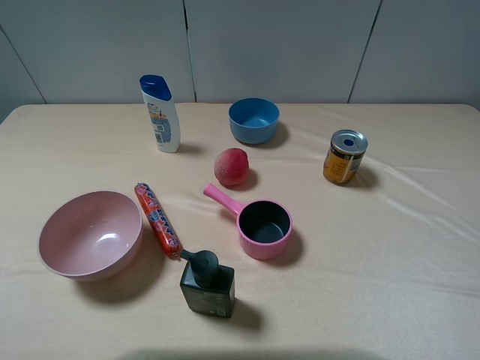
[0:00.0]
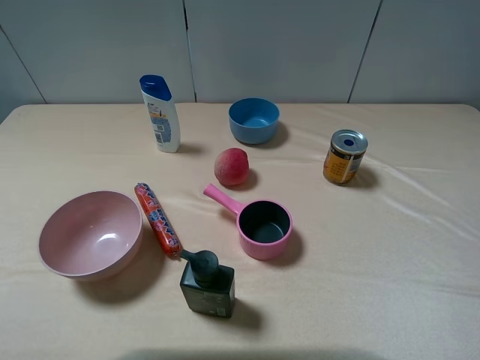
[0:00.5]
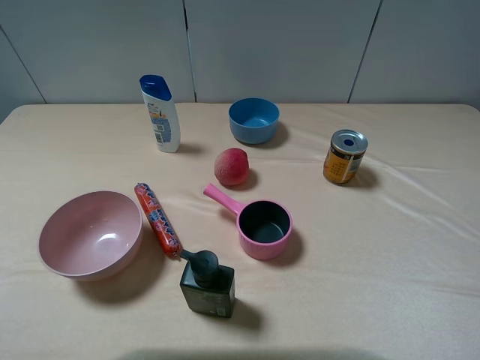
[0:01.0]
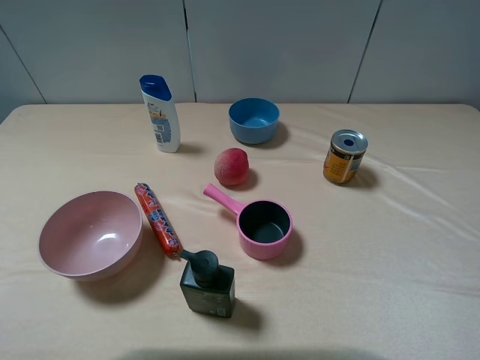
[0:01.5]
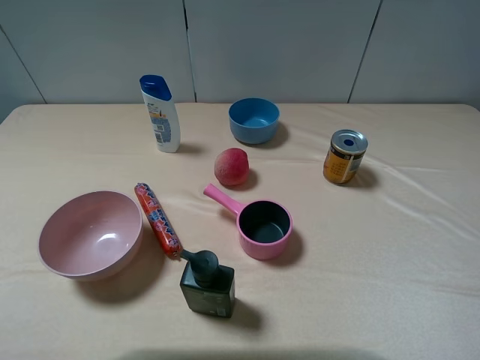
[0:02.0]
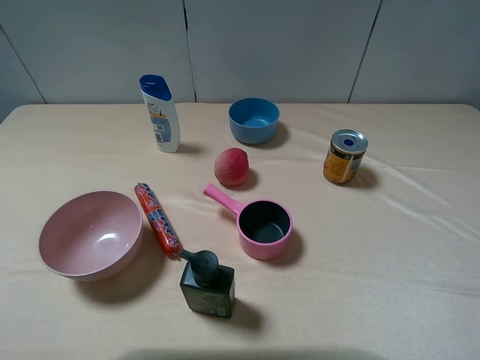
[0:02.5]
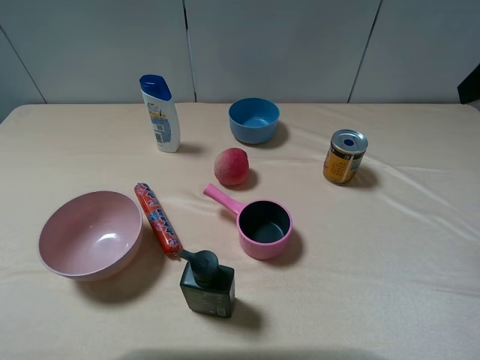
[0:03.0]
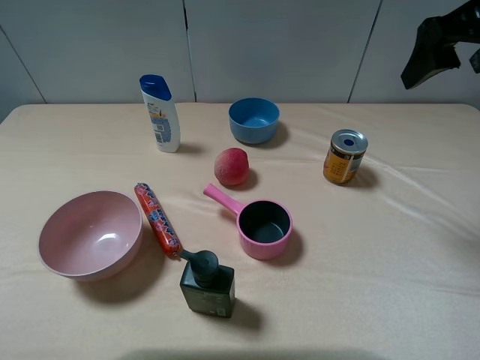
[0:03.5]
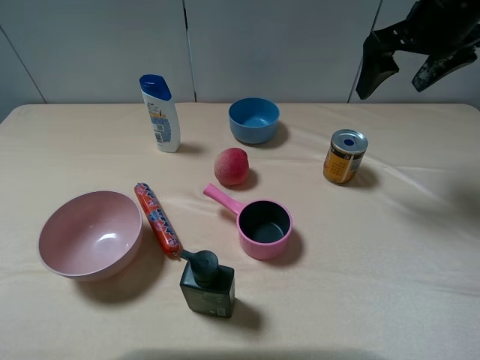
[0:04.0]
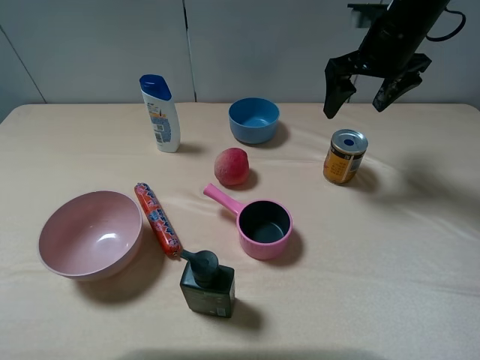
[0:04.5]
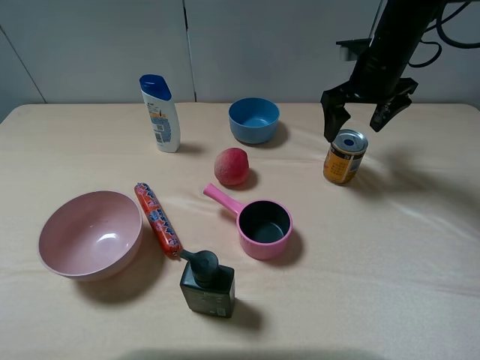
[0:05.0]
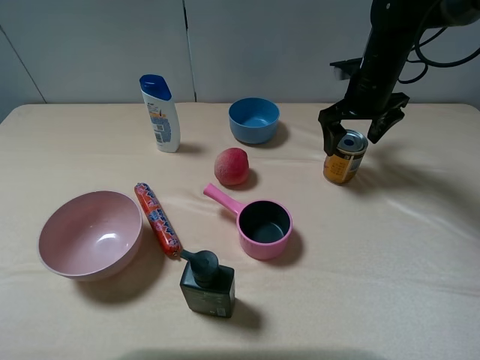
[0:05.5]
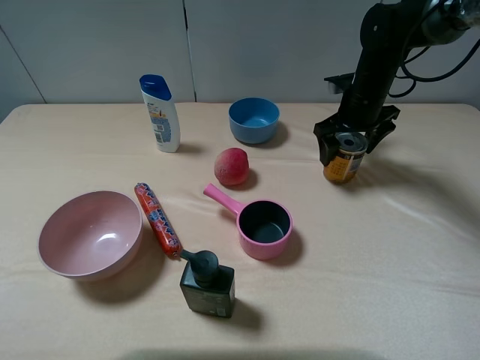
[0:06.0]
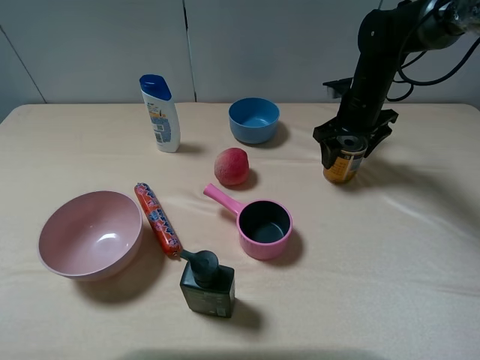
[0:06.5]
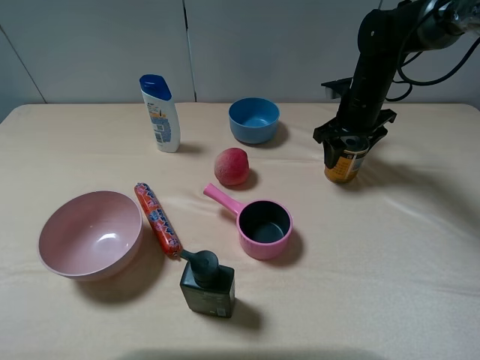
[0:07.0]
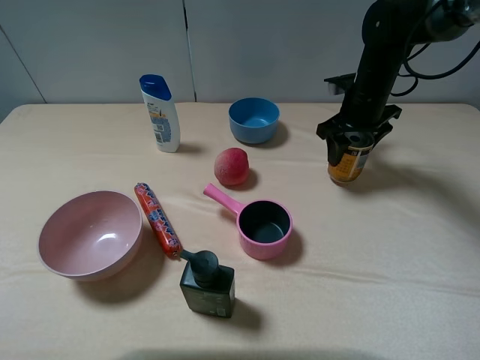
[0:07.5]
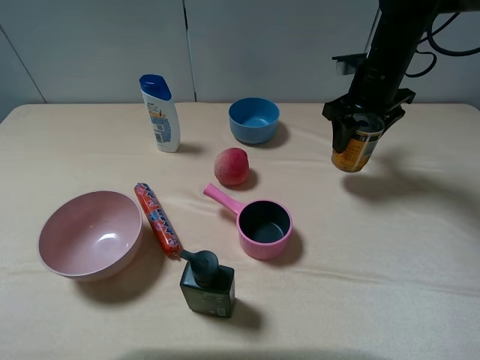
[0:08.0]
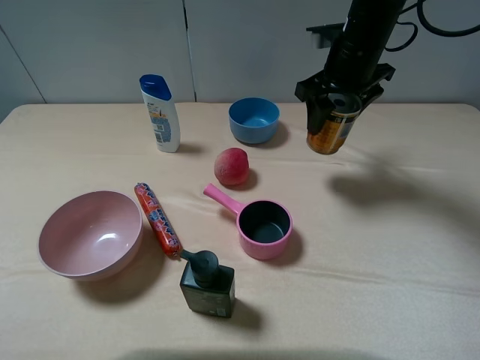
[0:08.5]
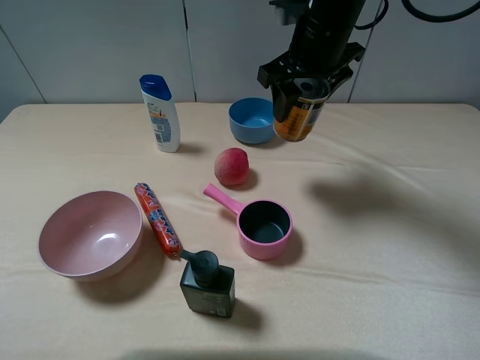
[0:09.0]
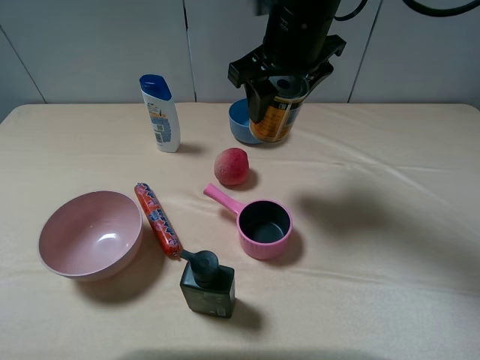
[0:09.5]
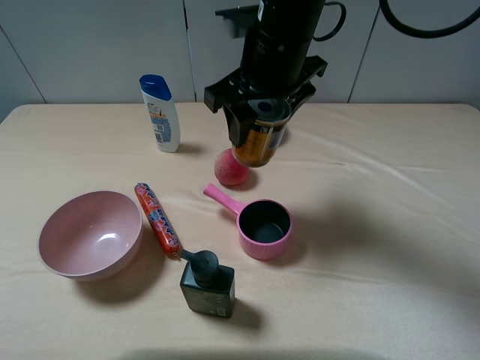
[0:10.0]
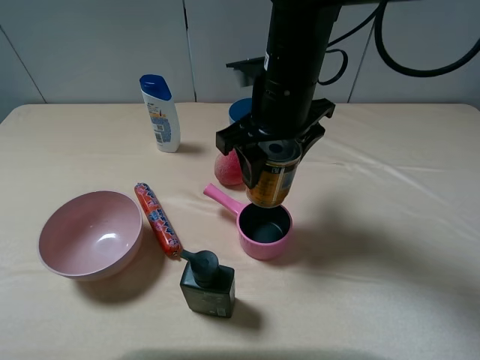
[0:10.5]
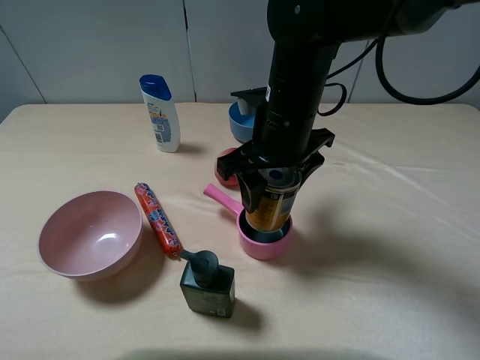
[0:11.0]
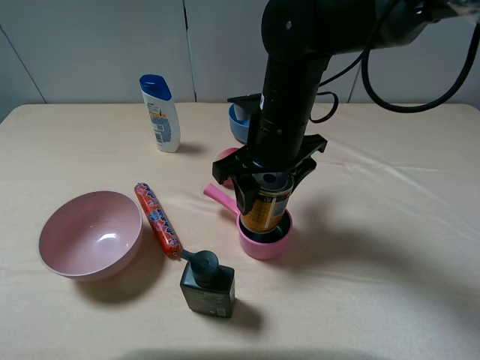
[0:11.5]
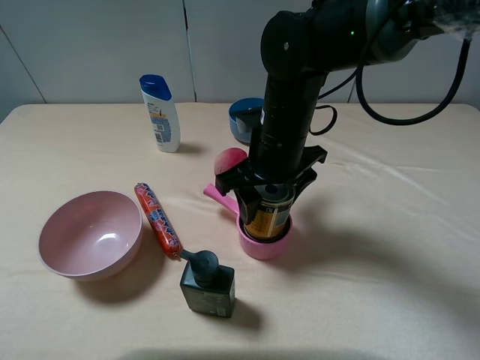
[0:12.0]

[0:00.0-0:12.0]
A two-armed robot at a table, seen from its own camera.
Task of the whole recording: pick up an item with a gripper and place it in a random container on the table.
Step, 0:00.0 to 0:06.5: Grasp the red bull with the right gripper.
0:02.0 to 0:04.0: The right gripper moves forward, some 35 cm.
0:04.0 to 0:06.0: The right gripper heads downward and forward, covering approximately 15 cm.
0:06.0 to 0:08.0: The right gripper heads upward, covering some 5 cm, and closes up.
0:08.0 to 0:10.0: The right gripper goes roughly 20 cm to the left, backward and upward.
0:10.0 to 0:12.0: The right gripper shifts approximately 10 cm downward.

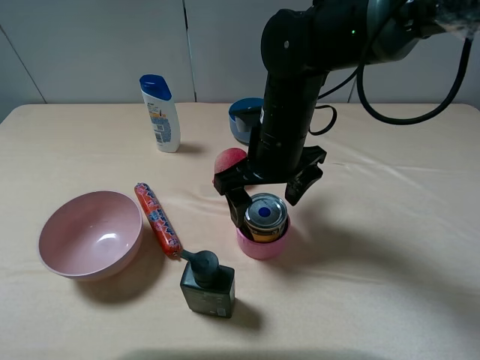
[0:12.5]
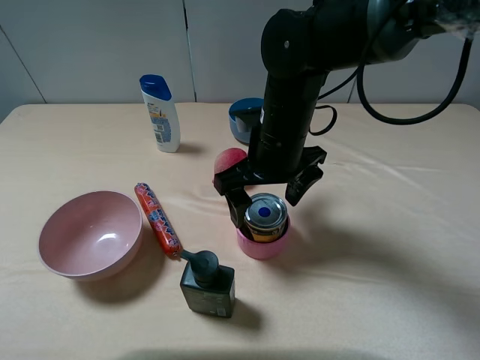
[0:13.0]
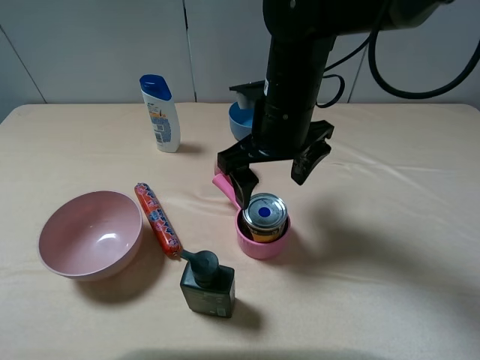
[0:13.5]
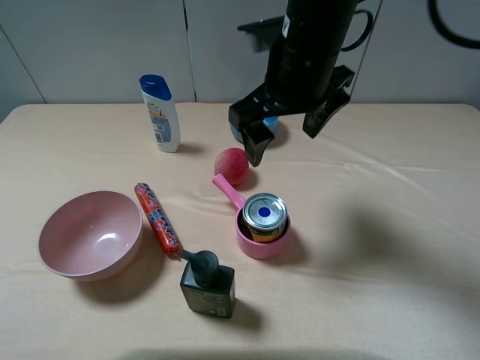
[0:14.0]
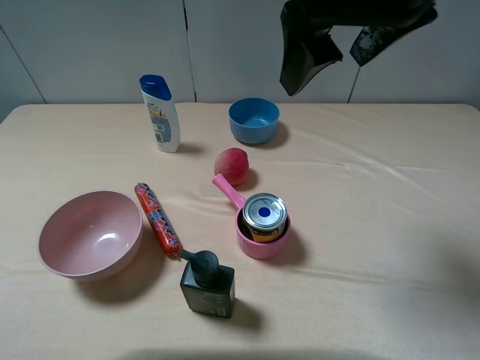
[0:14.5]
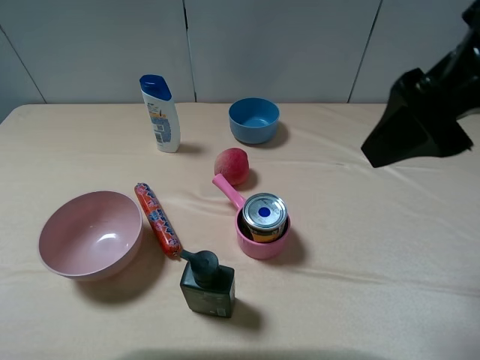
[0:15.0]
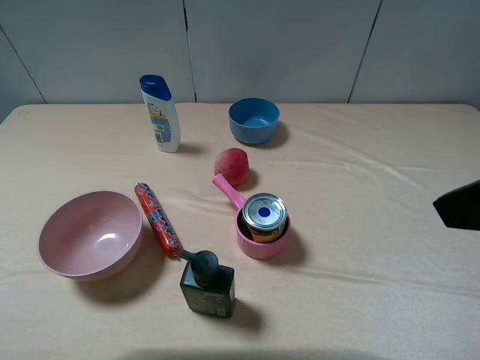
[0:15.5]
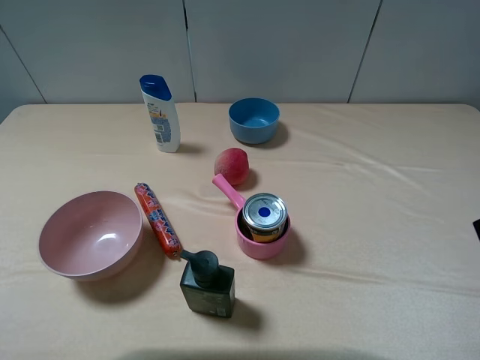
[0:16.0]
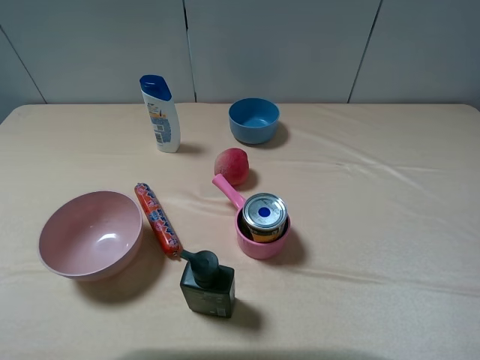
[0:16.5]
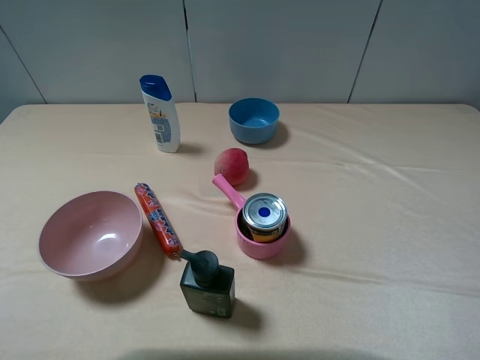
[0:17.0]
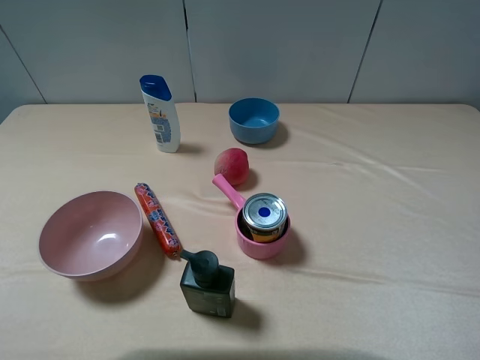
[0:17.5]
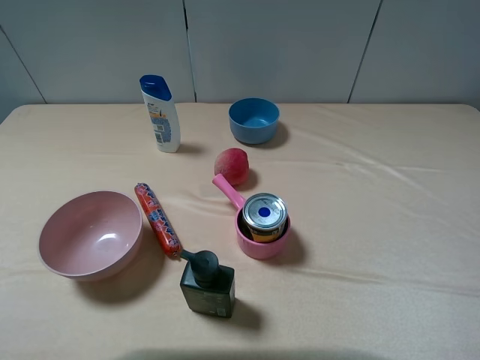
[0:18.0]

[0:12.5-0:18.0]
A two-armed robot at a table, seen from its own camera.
Task of the whole recording: pick up an item with a gripper and place it in a random container on the table.
0:12.5 to 0:14.5: The right gripper shifts some 20 cm upward.
0:14.5 to 0:16.0: The right gripper goes some 20 cm to the right, backward and downward.
